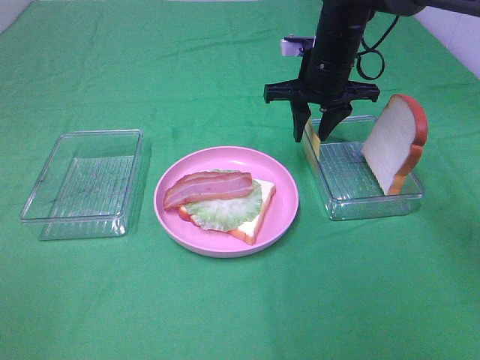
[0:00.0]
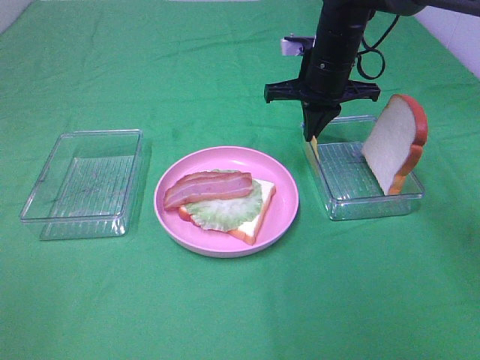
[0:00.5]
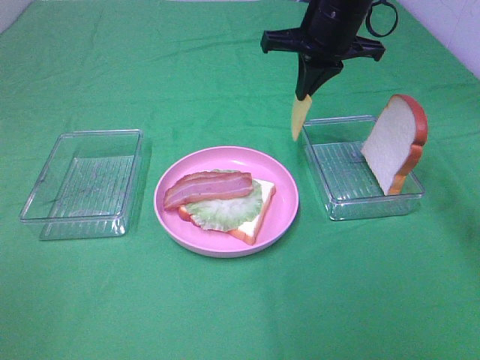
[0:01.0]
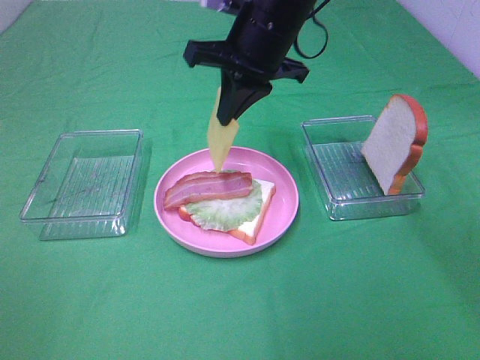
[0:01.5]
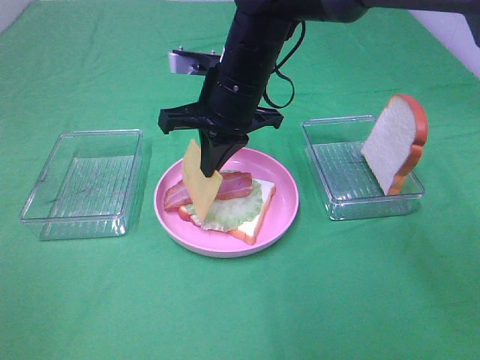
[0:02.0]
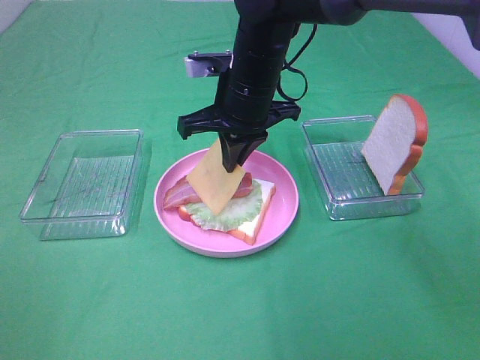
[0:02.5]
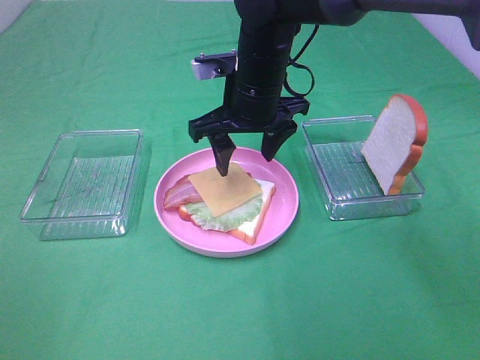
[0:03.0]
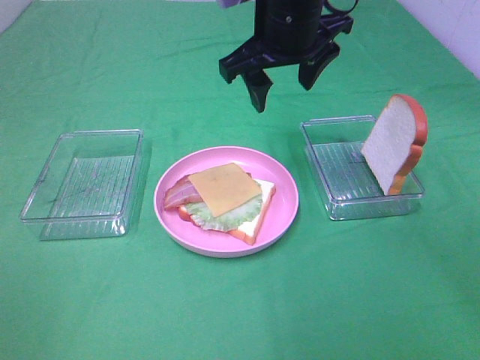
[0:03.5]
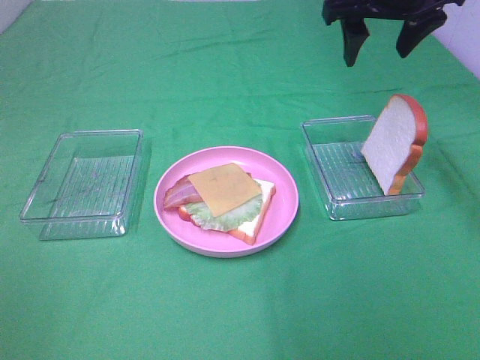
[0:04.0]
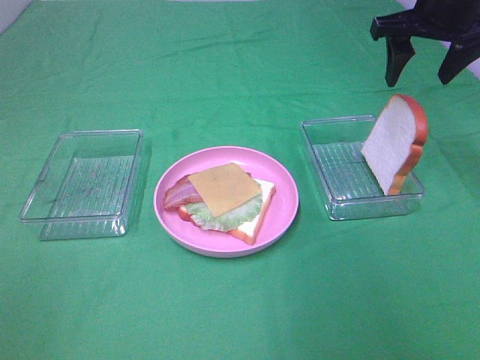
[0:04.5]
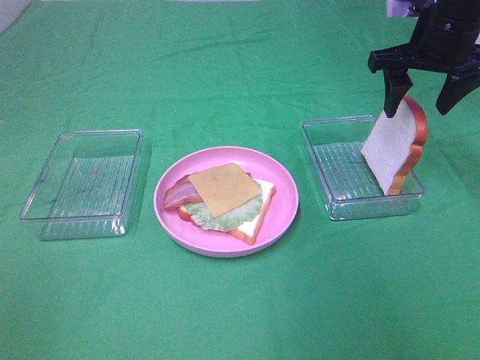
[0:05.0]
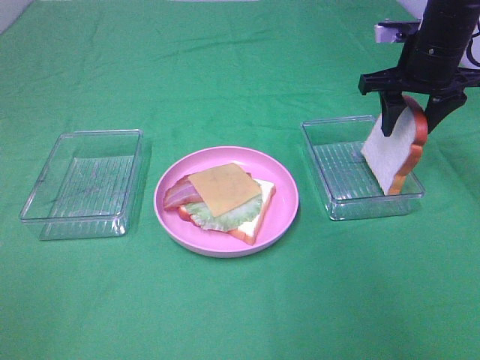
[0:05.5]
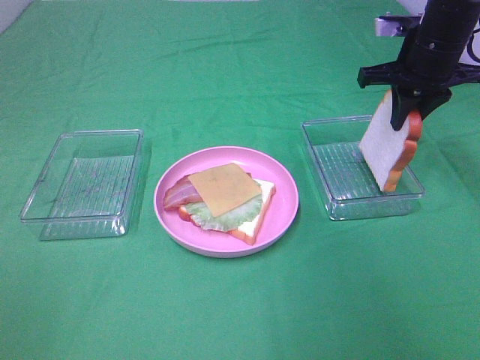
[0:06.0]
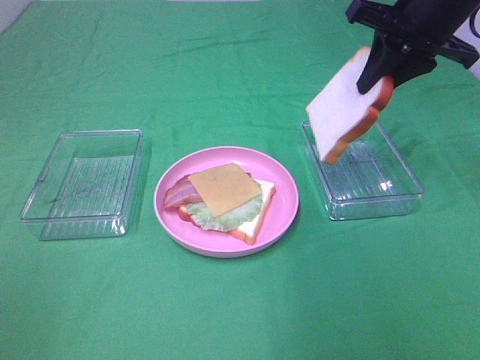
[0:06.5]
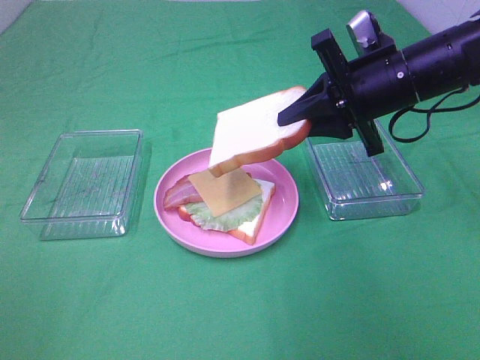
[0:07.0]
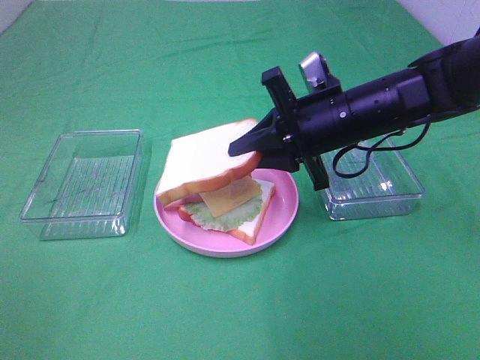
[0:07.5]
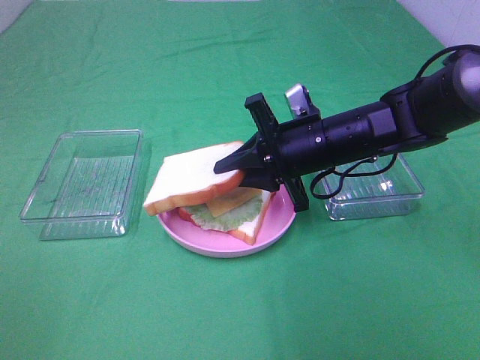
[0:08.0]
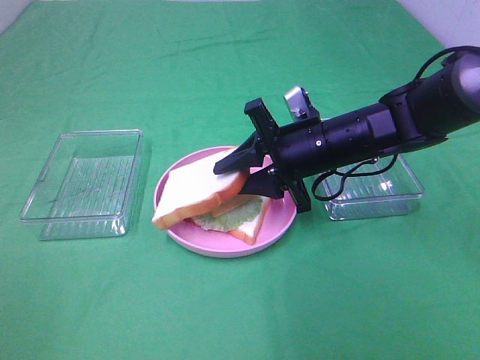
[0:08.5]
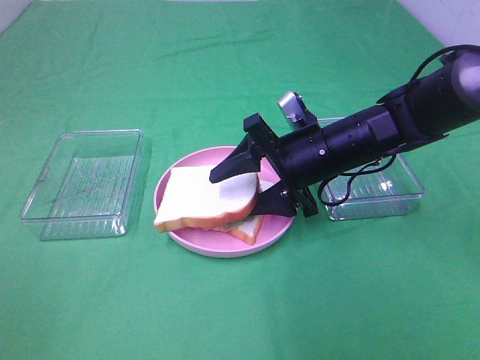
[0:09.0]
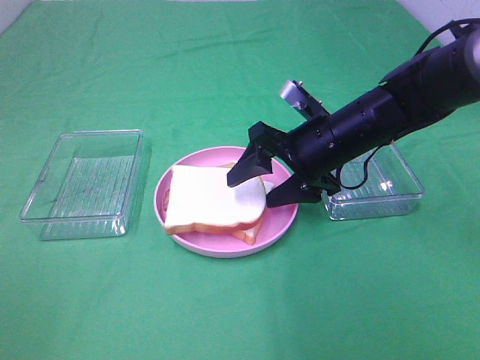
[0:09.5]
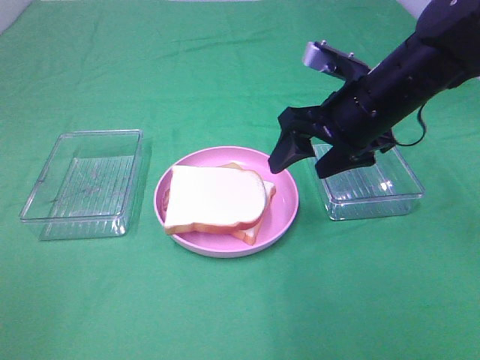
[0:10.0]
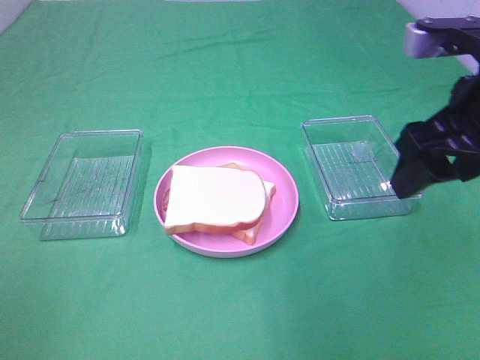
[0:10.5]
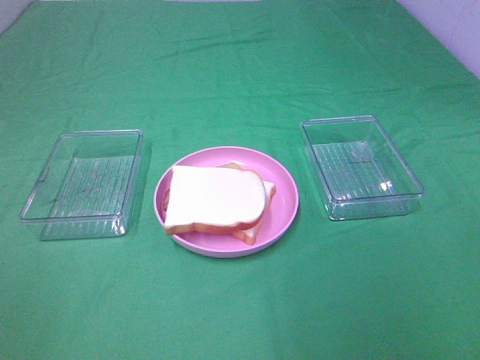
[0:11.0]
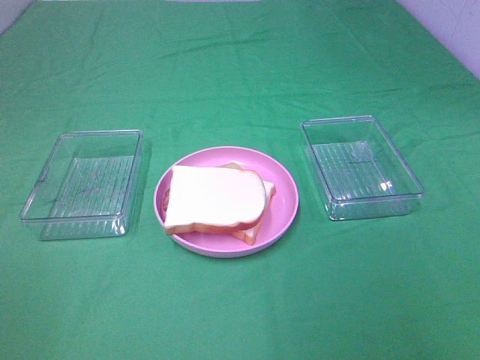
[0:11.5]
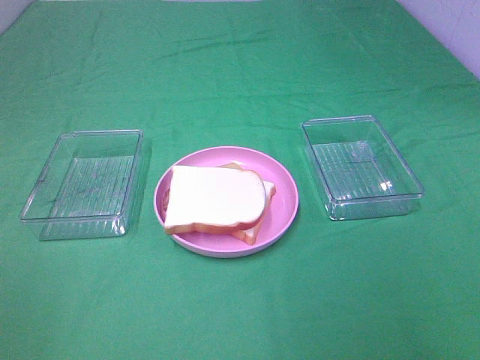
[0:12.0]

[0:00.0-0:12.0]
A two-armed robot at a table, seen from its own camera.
Task of the whole recording: Make sandwiches.
Step, 0:01.0 to 0:02.5: Right hand:place the cheese slice on top of the bacon.
Step, 0:03.0 to 0:05.5: Right hand:grab the bread slice.
Step, 0:06.0 to 0:10.0: Right hand:place the bread slice on the cheese slice.
0:00.0 to 0:02.0: The right gripper shifts approximately 15 cm to the left and backward, and closes.
0:02.0 to 0:04.0: The right gripper shifts roughly 20 cm to the right and upward, and opens.
0:04.0 to 0:06.0: The right gripper shifts about 10 cm downward and to the right, and closes.
0:06.0 to 0:08.0: The right gripper goes approximately 20 cm to the left, downward and backward.
0:08.0 to 0:10.0: The right gripper is displaced upward by some 10 cm, and opens its fingers.
0:10.0 to 0:12.0: The right gripper goes approximately 35 cm backward and to the right.

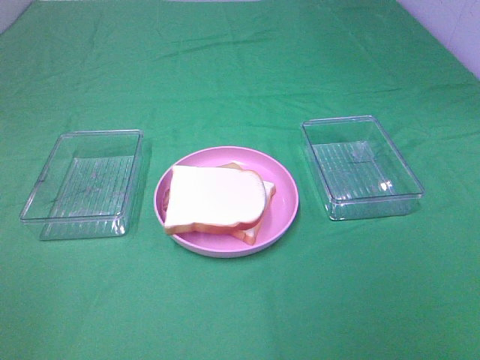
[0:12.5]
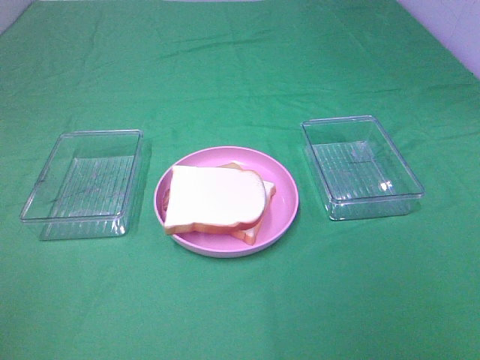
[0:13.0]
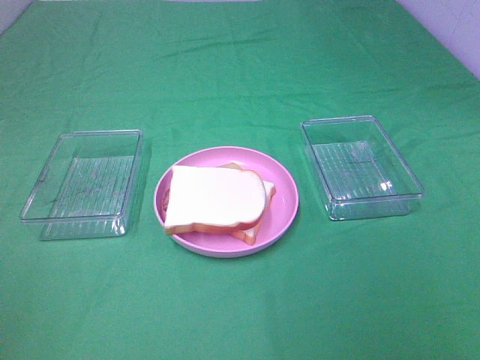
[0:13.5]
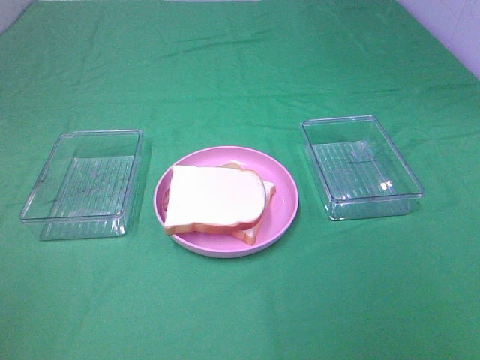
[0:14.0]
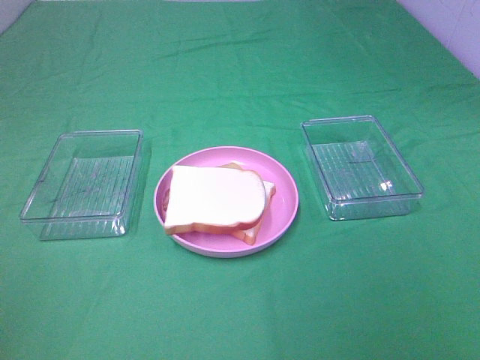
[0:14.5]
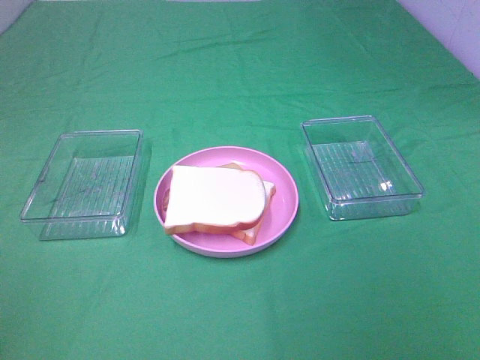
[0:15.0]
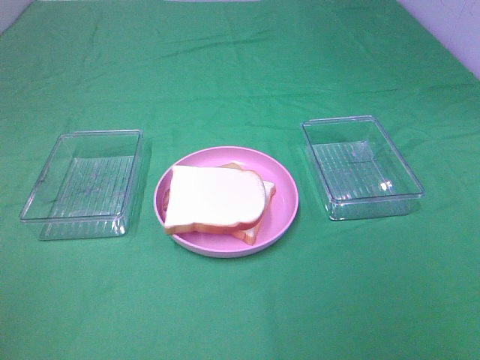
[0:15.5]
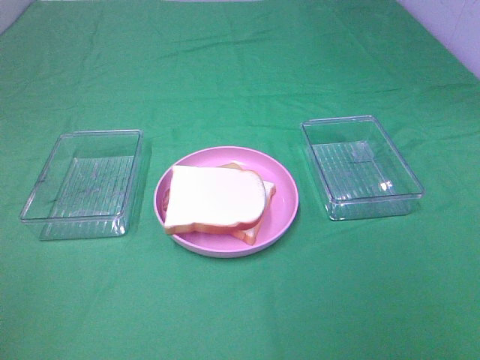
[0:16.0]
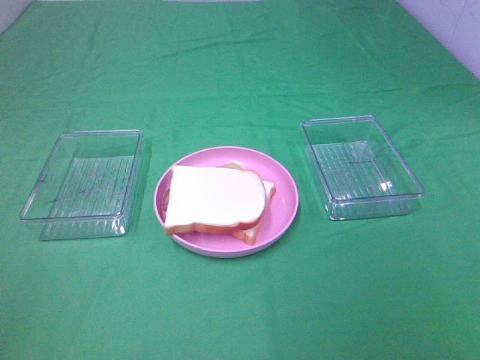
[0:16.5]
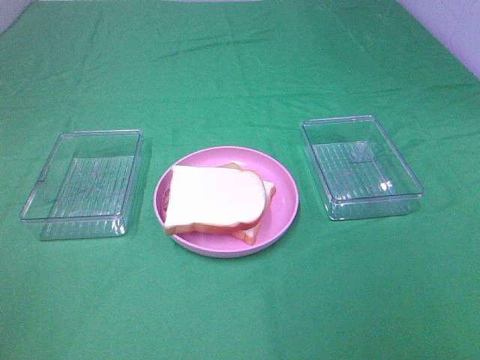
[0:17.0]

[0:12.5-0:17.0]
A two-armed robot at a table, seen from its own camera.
Task of the whole recording: Make sandwiches.
0:14.5 to 0:17.0: The two grippers keep their place.

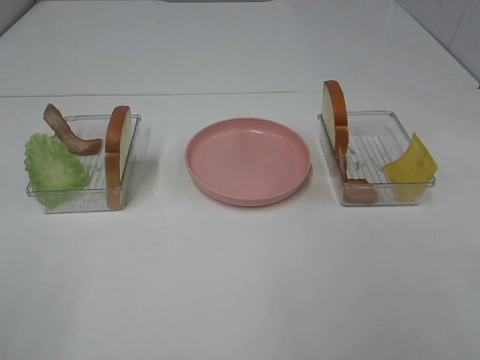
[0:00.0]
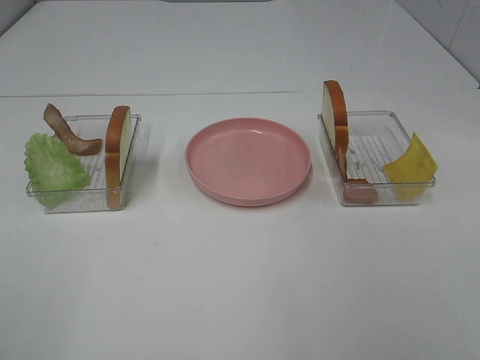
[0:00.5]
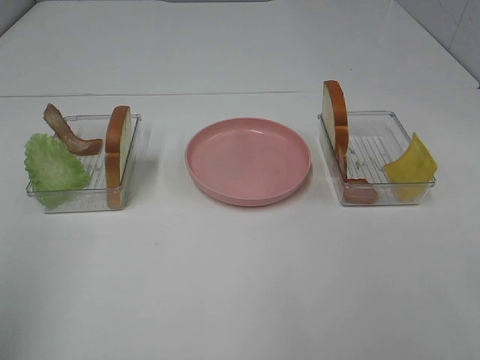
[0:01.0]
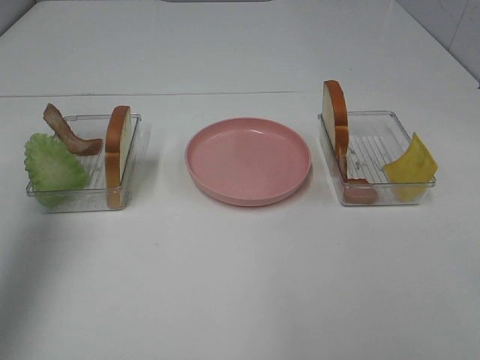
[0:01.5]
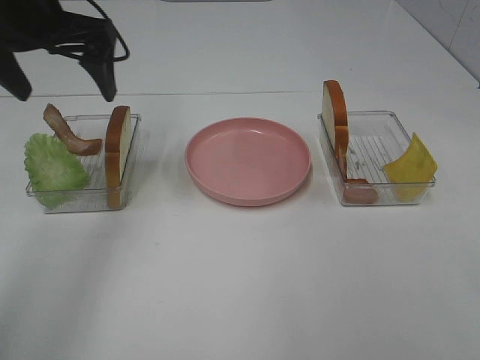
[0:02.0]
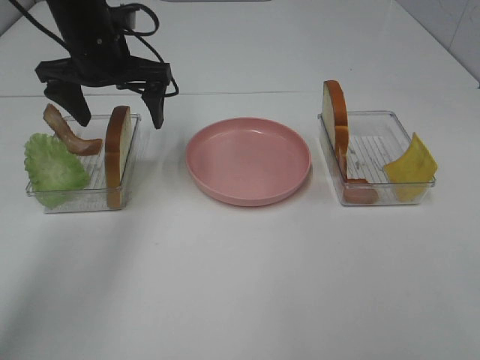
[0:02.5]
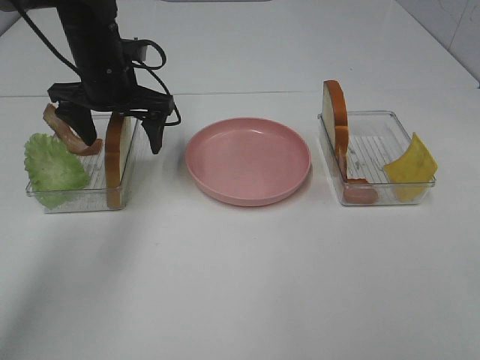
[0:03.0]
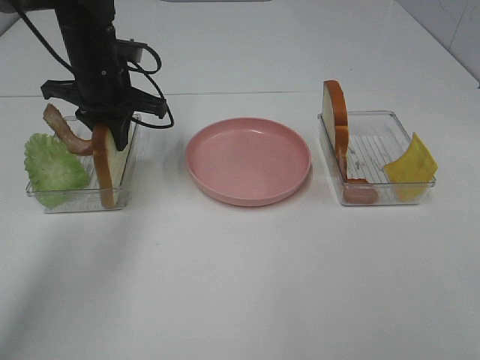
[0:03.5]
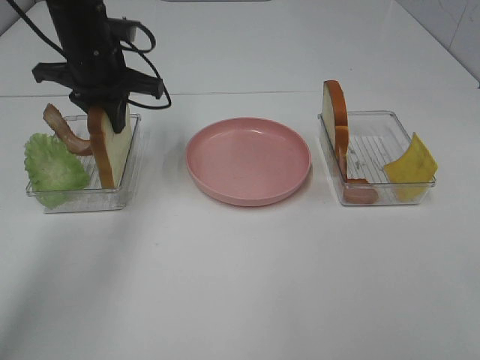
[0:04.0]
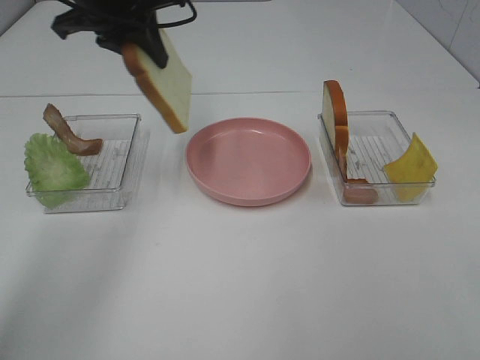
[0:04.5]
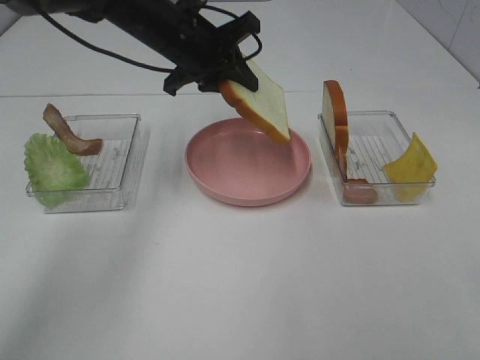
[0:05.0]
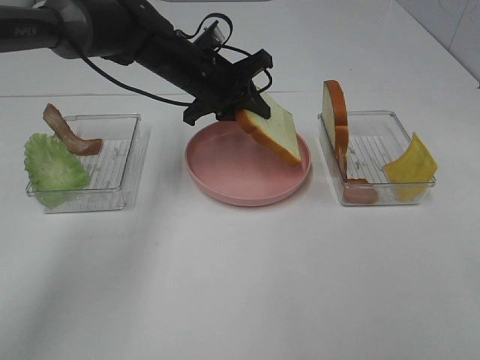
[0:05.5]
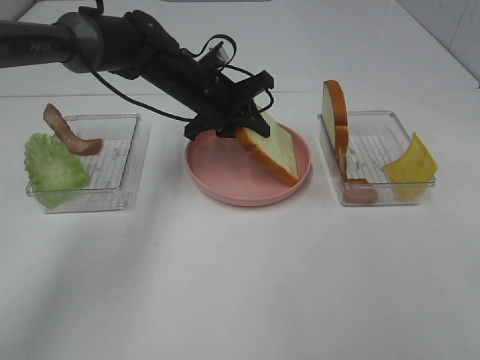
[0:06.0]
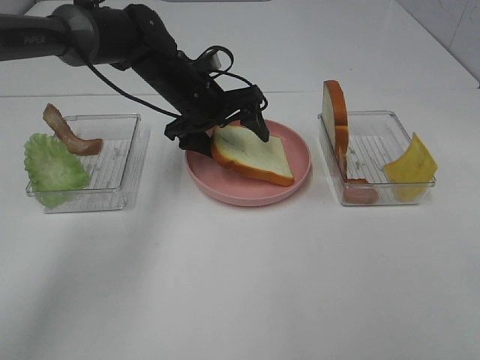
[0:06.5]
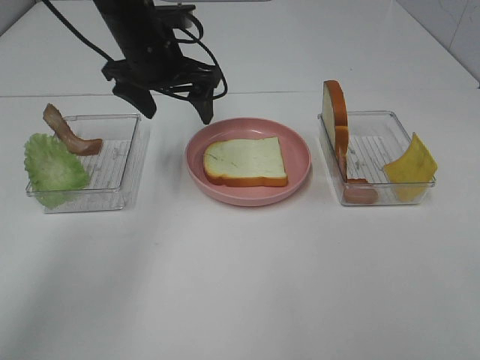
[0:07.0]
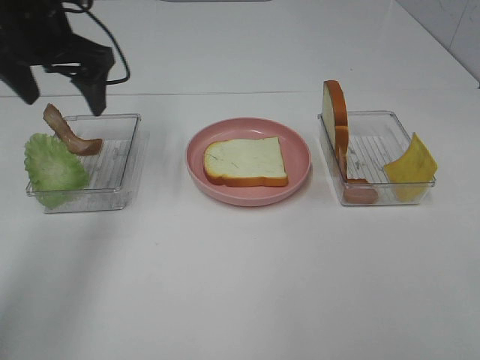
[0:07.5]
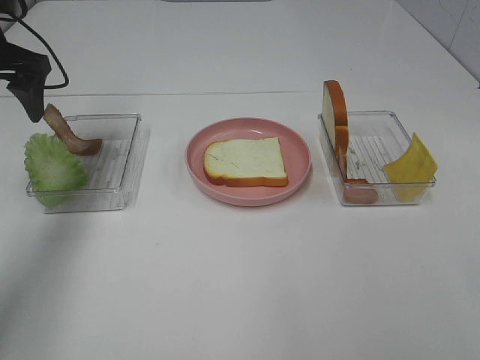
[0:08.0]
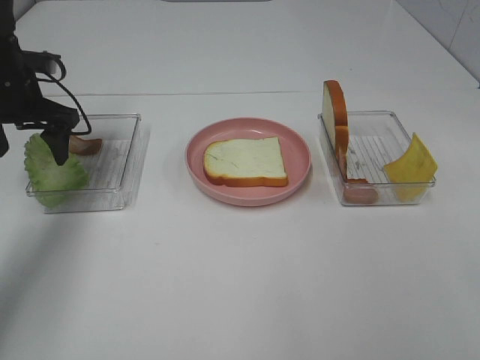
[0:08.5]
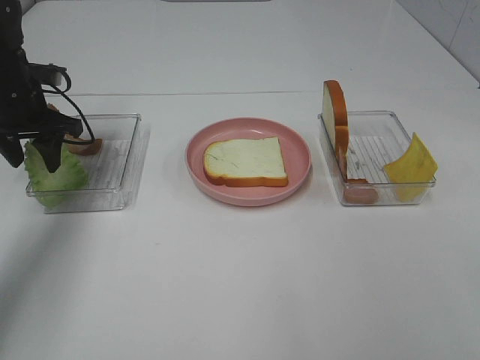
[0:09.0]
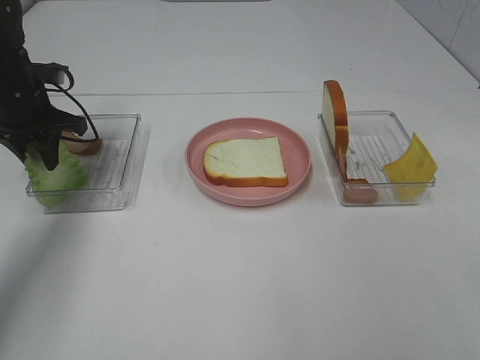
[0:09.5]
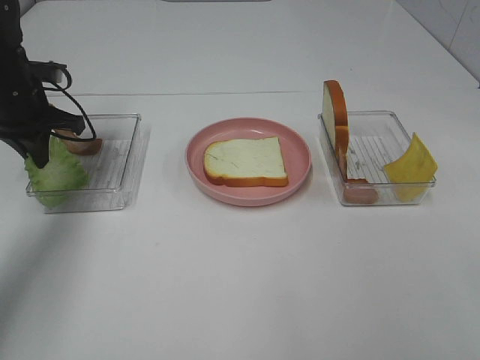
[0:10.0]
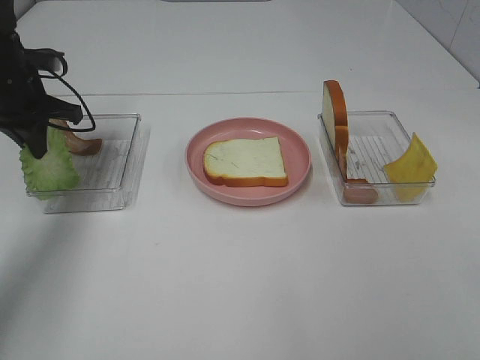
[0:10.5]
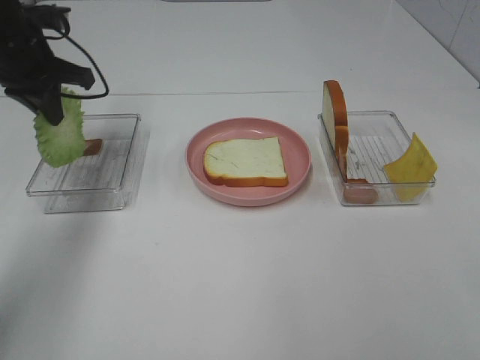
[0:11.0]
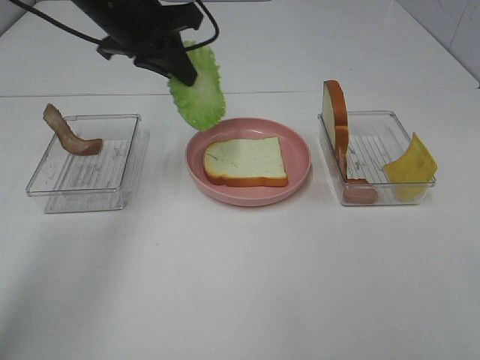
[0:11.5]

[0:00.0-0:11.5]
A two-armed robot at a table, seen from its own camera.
Task of the whole recording: Make sandwiches.
Step, 0:00.0 to 0:04.0: Left hand:grab the bread slice.
Step, 0:04.5 to 0:06.5: Left hand:place the bread slice on the plate.
Step, 0:07.0 to 0:10.5: Left hand:grab the lettuce slice.
0:00.0 to 0:02.0: The left gripper heads forward, covering some 40 cm.
0:02.0 to 0:04.0: The left gripper shifts about 10 cm downward and forward, and closes up.
0:04.0 to 0:06.0: The left gripper travels to the right and downward by about 15 cm.
0:06.0 to 0:07.5: The left gripper goes approximately 20 cm to the left and upward, and opens.
0:07.5 to 0:09.5: The left gripper travels downward and to the left by about 15 cm, and closes.
0:09.5 to 0:11.5: The left gripper heads to the right and upward, covering approximately 20 cm.
